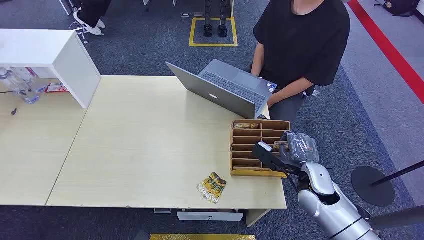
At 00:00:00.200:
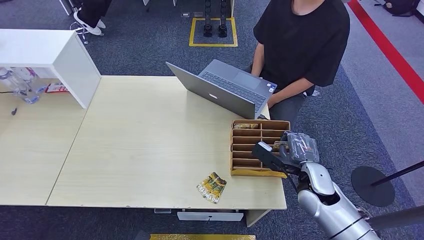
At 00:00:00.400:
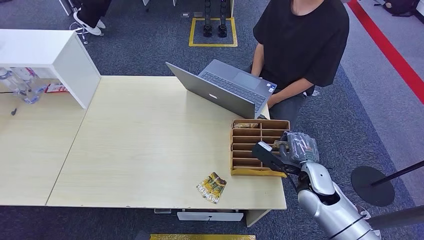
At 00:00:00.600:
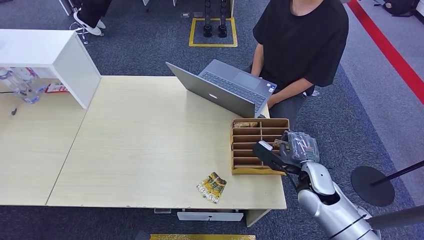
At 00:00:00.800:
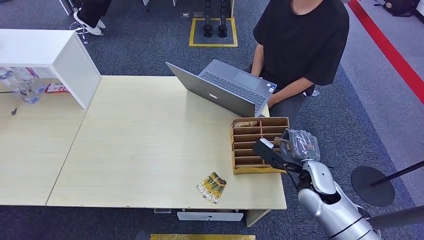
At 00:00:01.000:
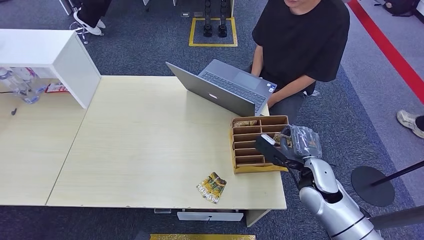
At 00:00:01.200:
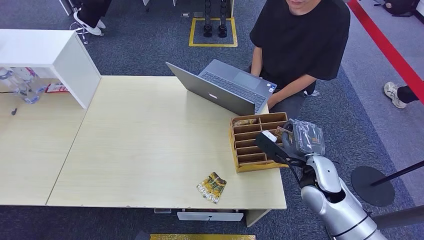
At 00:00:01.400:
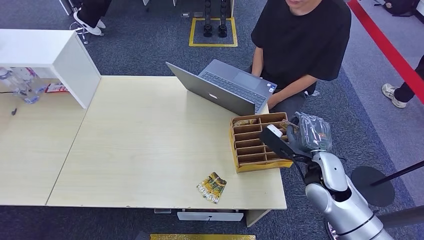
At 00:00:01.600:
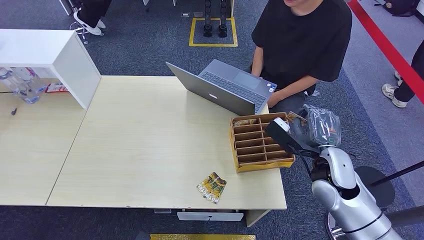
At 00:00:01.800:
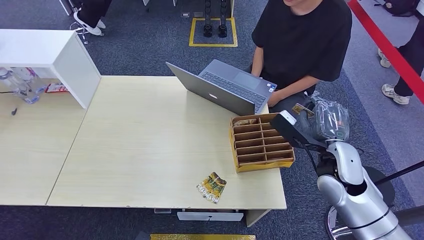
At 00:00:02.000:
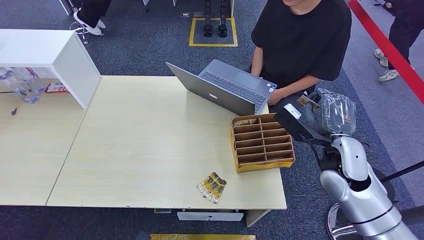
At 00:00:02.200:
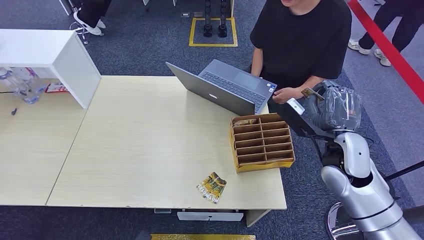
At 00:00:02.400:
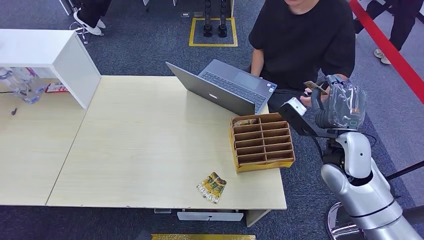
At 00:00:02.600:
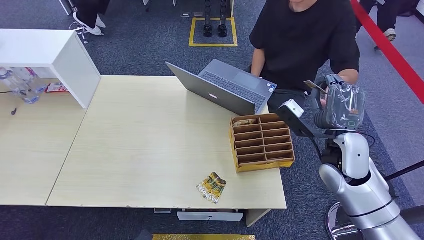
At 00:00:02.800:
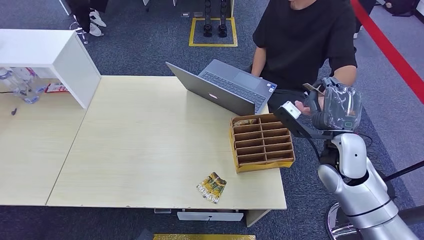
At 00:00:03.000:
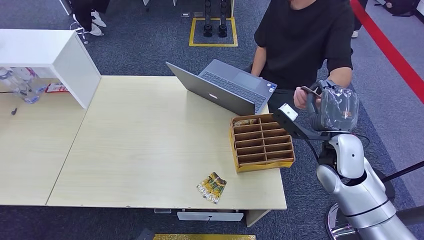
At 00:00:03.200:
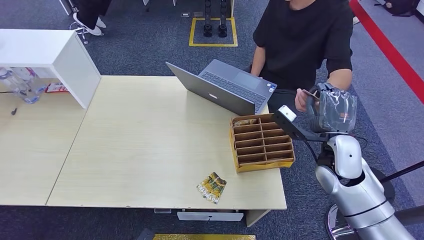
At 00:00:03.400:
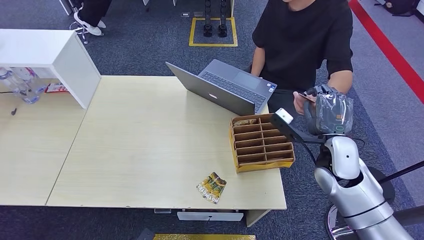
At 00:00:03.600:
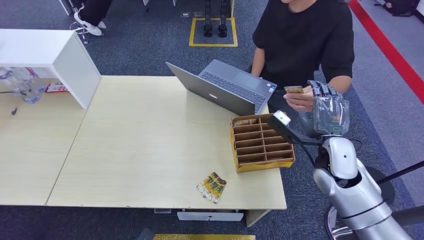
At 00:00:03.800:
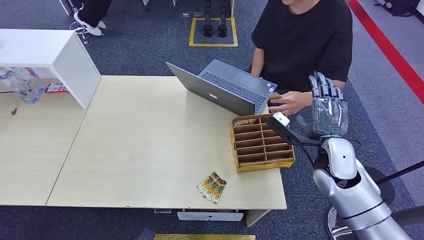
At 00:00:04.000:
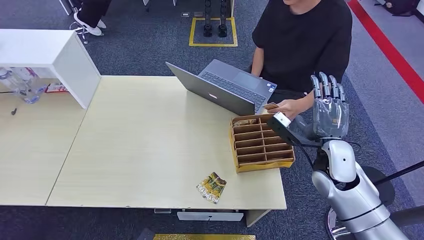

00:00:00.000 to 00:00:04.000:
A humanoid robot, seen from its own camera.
Step, 00:00:00.000 to 00:00:02.000: Pick up the key card from the card box.
Step, 00:00:02.400 to 00:00:03.800: Hand the key card to the target.
00:00:01.400 to 00:00:02.600: The right hand is displaced upward by approximately 5 cm.
00:00:02.600 to 00:00:04.000: The hands stay close to where they were, moving slightly.
